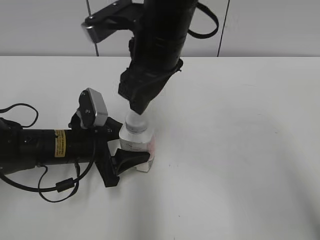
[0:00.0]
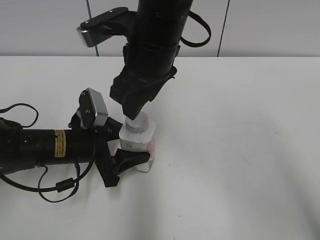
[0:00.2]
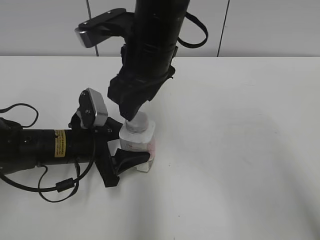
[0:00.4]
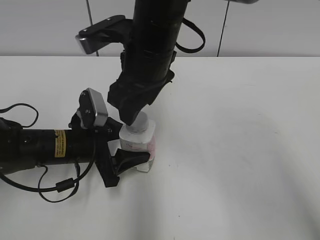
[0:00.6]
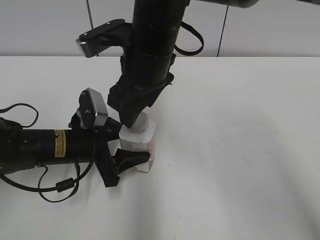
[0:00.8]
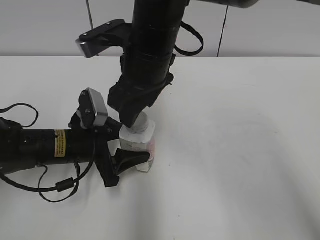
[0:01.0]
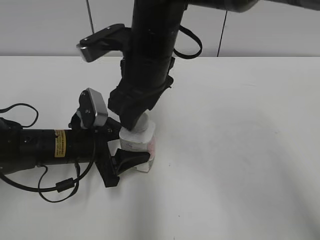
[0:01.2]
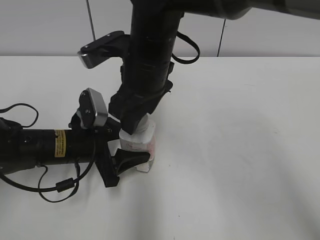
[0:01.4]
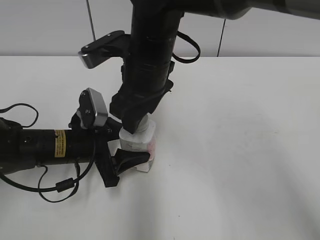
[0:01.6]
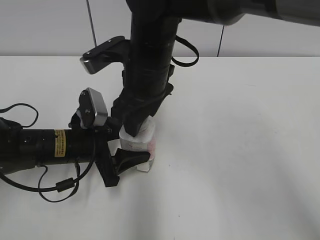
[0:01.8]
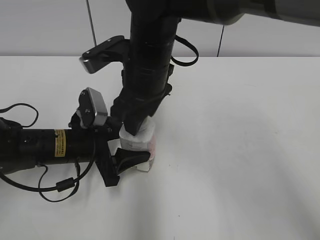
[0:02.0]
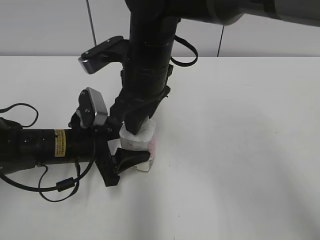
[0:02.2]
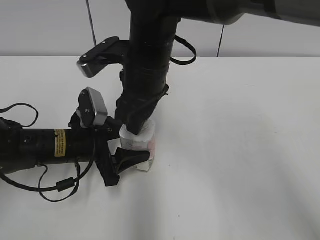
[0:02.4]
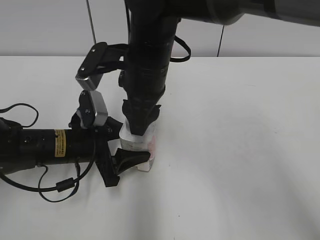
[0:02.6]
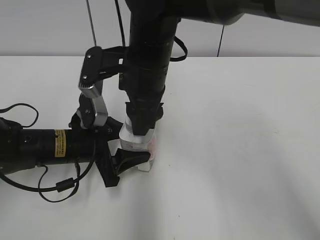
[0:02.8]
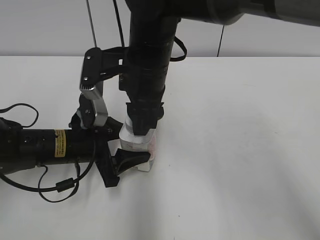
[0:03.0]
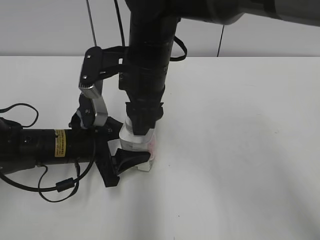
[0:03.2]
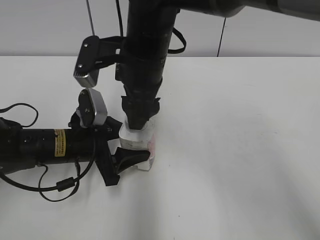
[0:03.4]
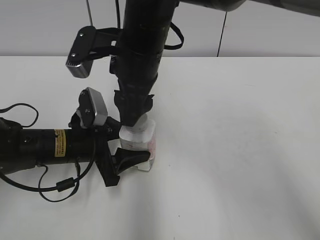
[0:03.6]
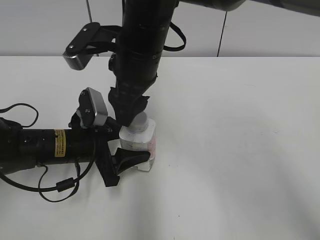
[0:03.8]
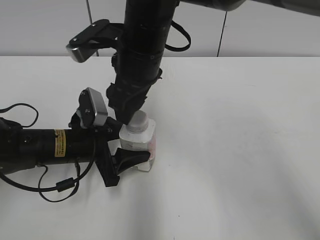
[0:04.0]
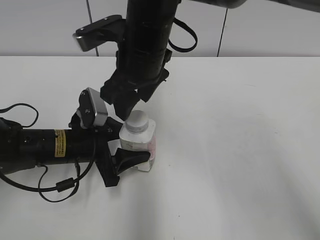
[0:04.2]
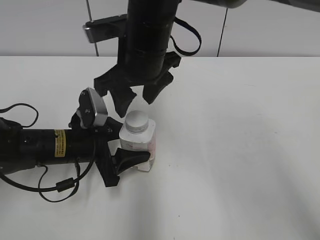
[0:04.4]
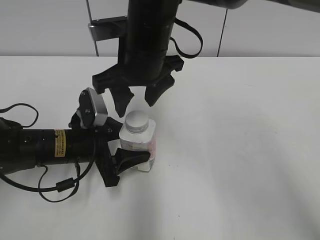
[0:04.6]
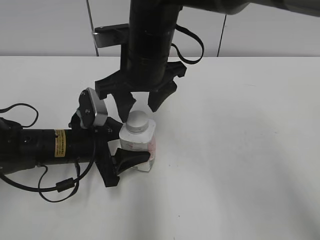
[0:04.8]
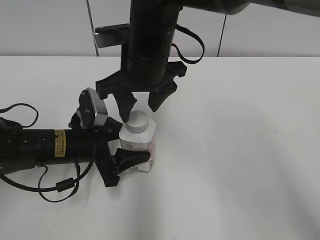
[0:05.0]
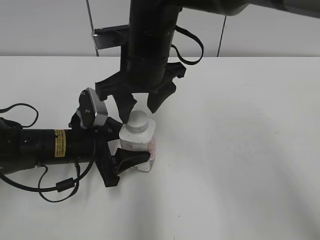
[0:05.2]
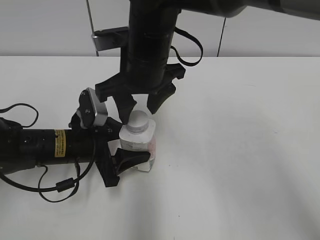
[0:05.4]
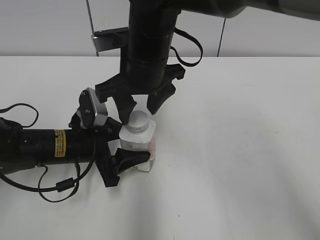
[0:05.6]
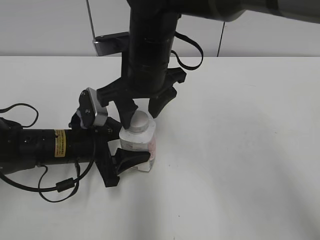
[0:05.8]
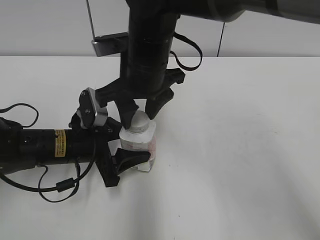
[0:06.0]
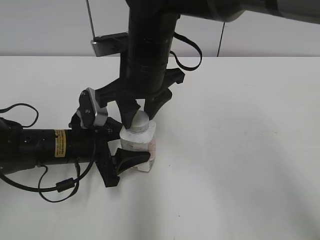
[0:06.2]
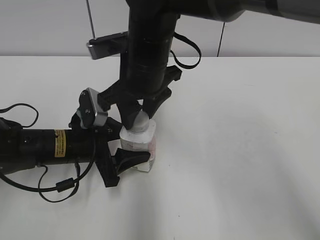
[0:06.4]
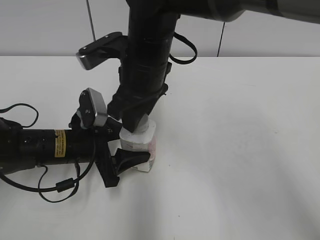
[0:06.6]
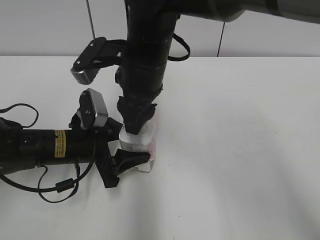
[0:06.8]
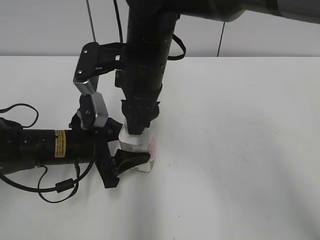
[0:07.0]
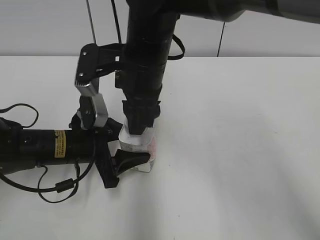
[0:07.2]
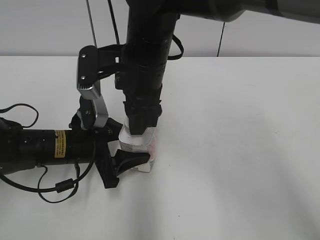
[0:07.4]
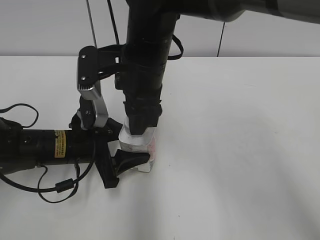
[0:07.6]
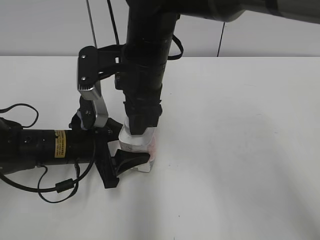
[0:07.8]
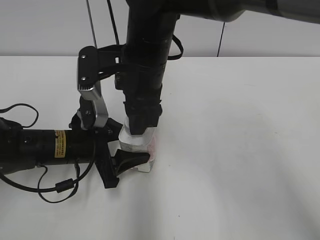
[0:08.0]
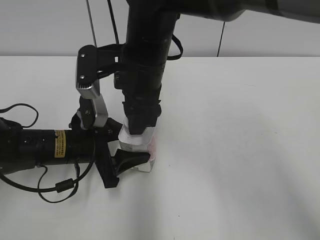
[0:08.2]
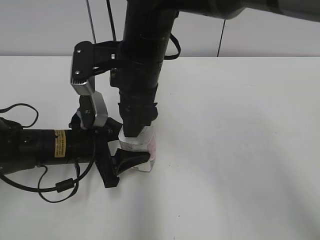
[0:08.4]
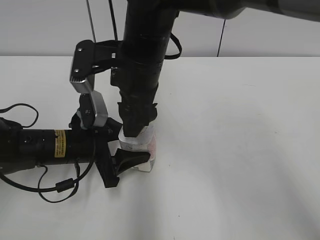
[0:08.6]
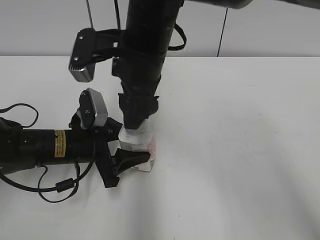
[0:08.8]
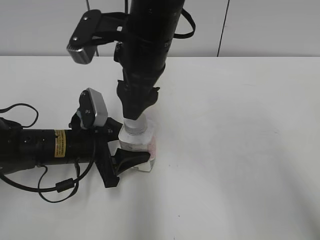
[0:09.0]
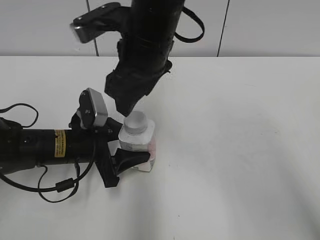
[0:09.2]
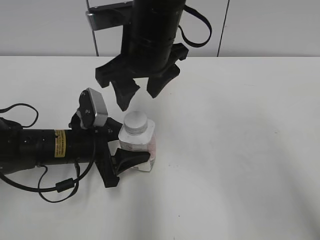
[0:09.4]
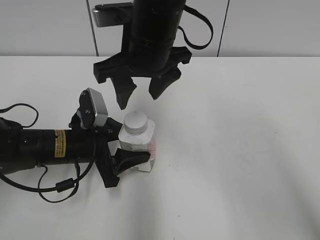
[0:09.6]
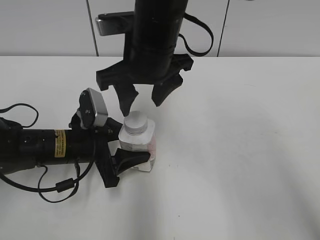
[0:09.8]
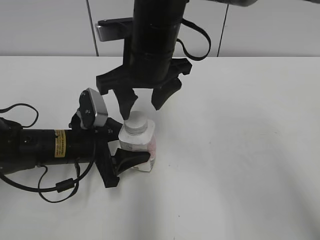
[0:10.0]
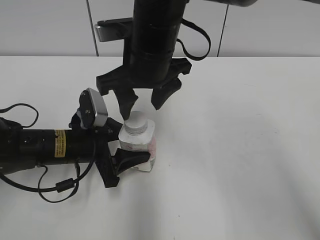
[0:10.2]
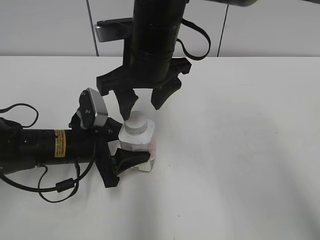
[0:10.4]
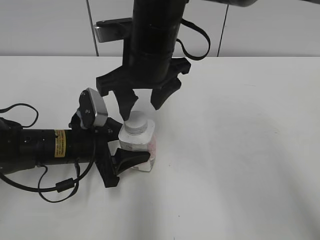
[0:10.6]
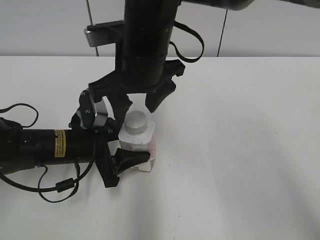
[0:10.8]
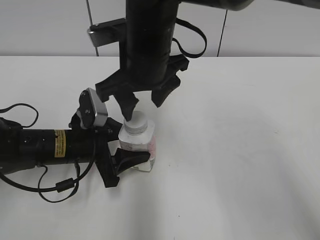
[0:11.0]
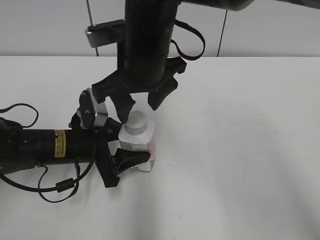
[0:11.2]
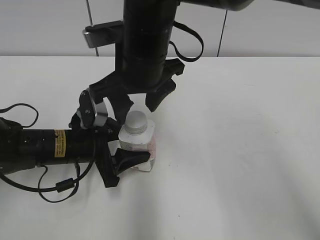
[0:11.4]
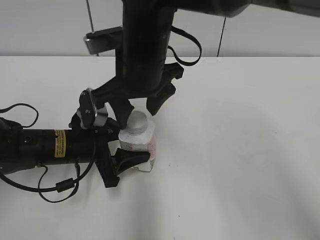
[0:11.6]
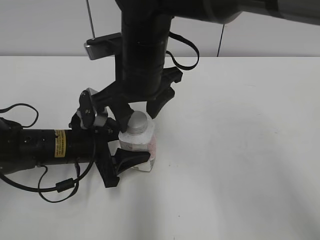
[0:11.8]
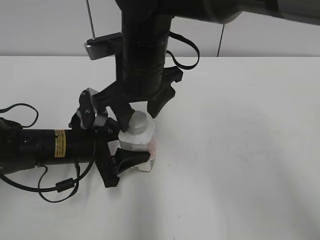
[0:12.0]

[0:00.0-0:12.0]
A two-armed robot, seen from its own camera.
0:00.0 to 0:01.6: The right gripper shifts by some 5 cm.
0:01.6 to 0:03.0: The right gripper closes its fingers.
0:03.0 to 0:04.4: The right gripper opens up.
0:04.4 to 0:06.0: The grippers move only a little.
0:07.6 to 0:09.0: The right gripper opens its fingers.
0:10.4 to 0:12.0: The grippers make only small movements.

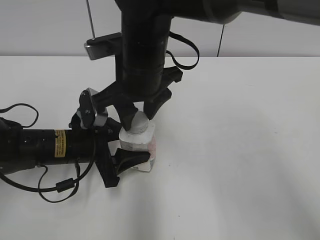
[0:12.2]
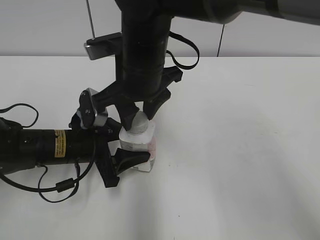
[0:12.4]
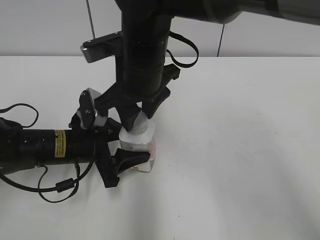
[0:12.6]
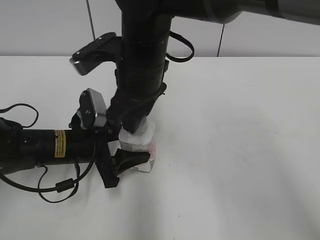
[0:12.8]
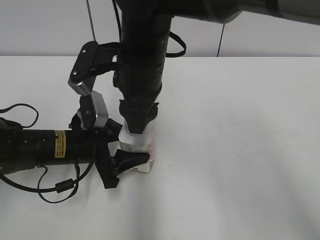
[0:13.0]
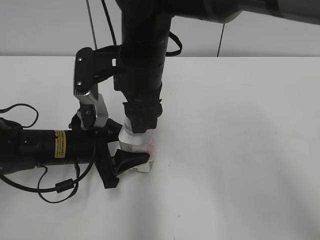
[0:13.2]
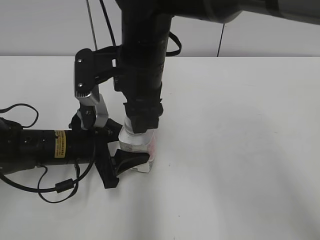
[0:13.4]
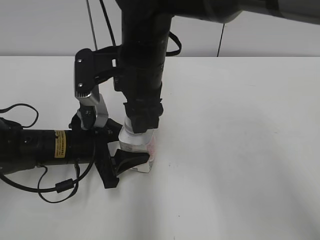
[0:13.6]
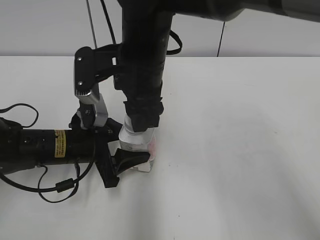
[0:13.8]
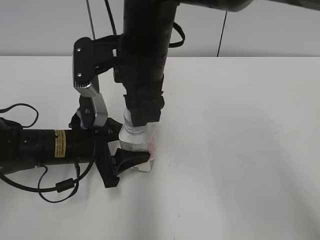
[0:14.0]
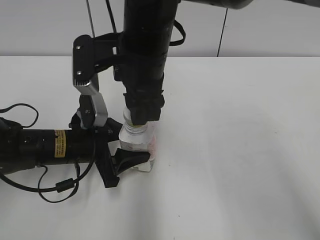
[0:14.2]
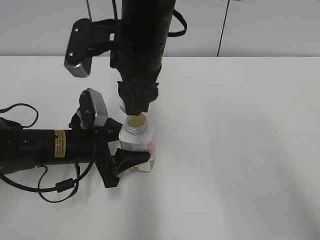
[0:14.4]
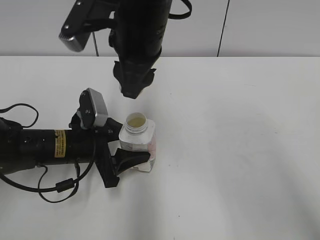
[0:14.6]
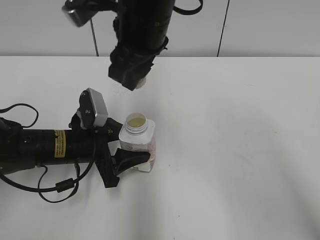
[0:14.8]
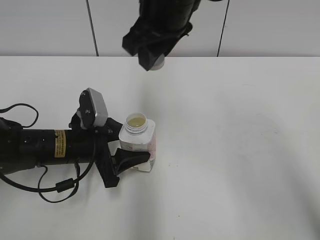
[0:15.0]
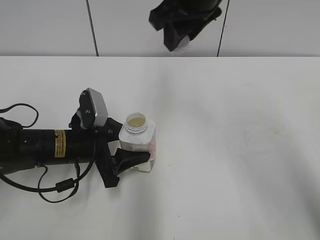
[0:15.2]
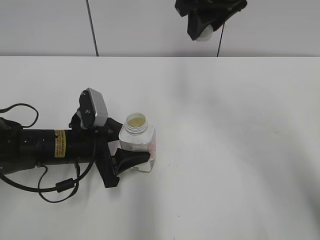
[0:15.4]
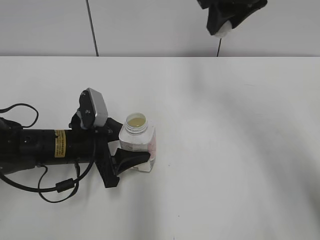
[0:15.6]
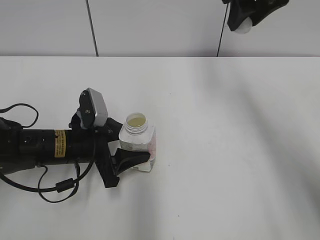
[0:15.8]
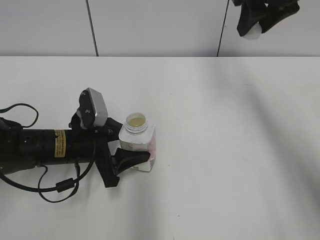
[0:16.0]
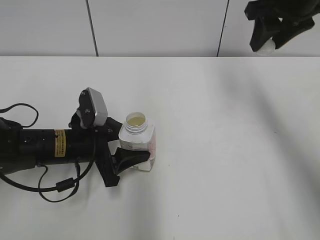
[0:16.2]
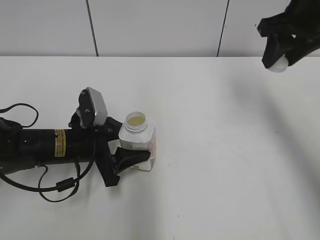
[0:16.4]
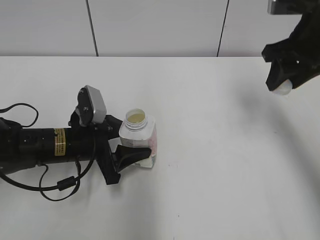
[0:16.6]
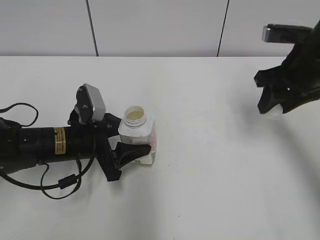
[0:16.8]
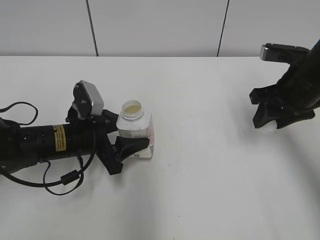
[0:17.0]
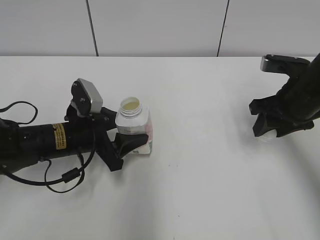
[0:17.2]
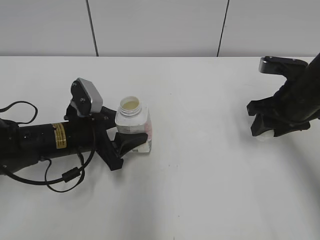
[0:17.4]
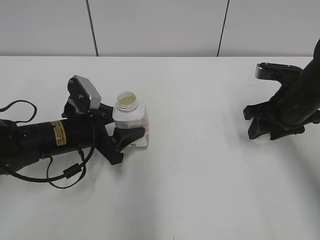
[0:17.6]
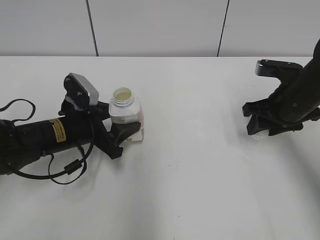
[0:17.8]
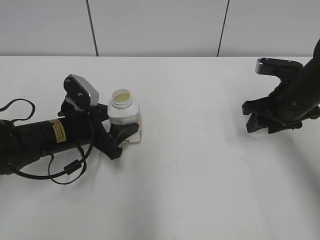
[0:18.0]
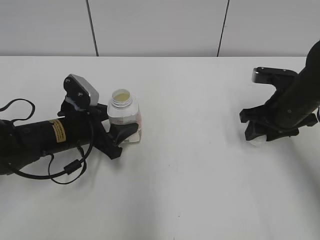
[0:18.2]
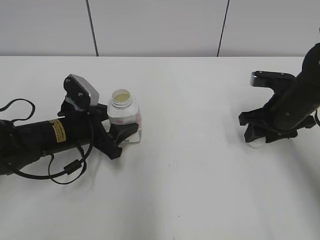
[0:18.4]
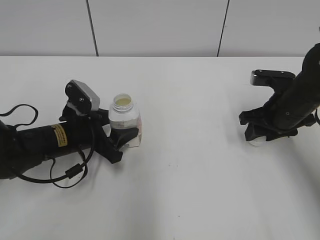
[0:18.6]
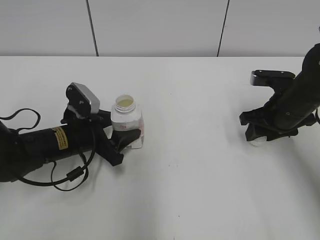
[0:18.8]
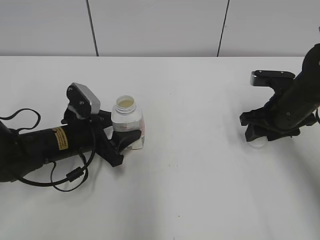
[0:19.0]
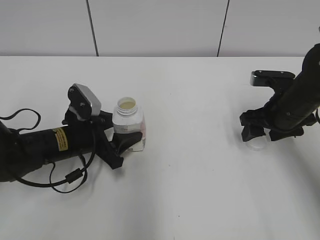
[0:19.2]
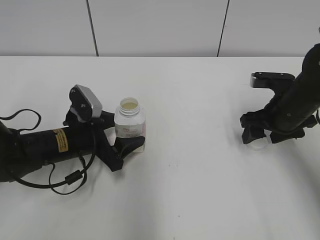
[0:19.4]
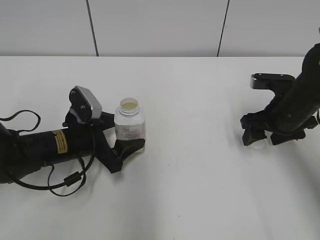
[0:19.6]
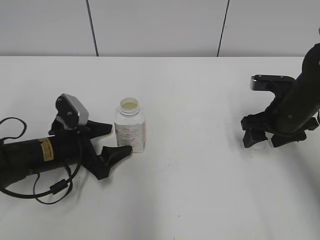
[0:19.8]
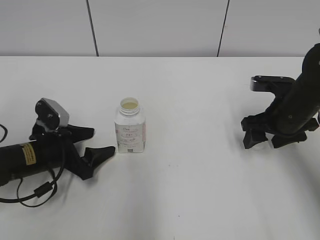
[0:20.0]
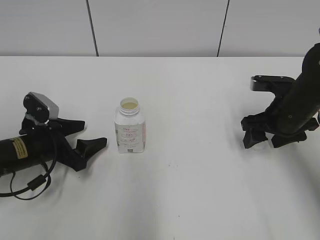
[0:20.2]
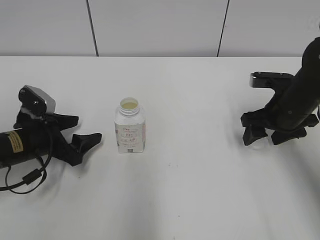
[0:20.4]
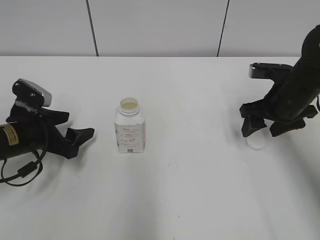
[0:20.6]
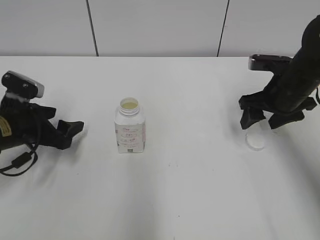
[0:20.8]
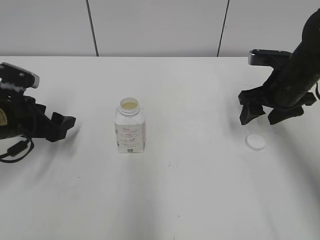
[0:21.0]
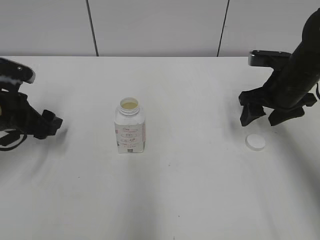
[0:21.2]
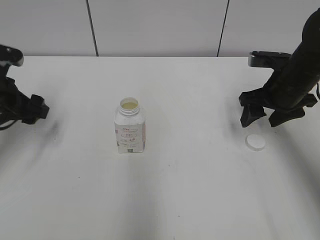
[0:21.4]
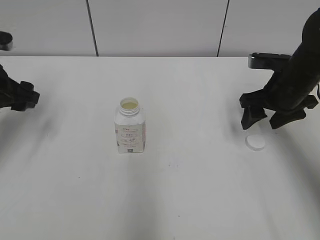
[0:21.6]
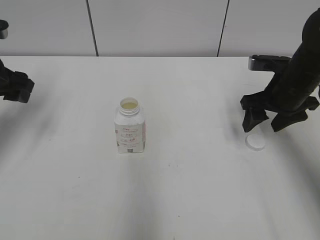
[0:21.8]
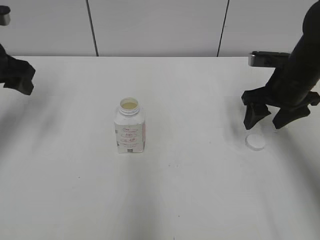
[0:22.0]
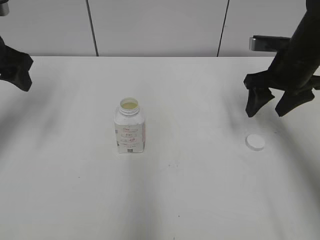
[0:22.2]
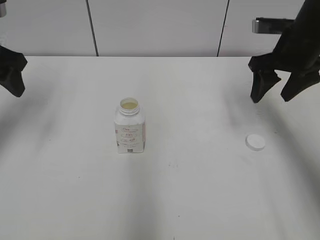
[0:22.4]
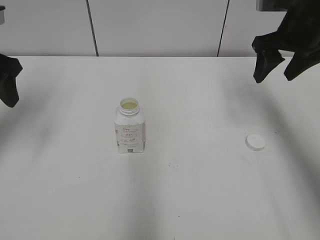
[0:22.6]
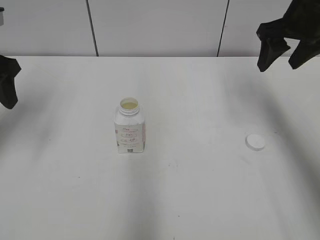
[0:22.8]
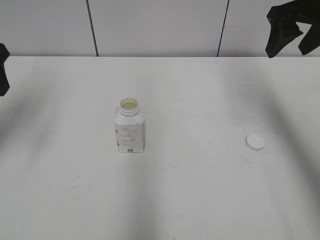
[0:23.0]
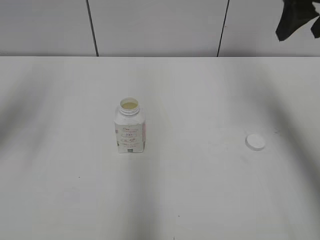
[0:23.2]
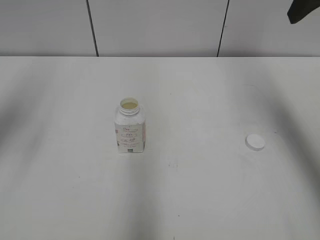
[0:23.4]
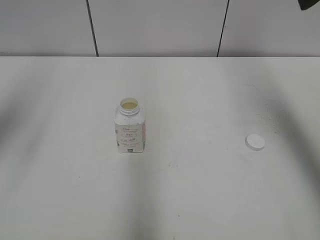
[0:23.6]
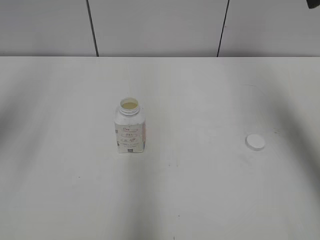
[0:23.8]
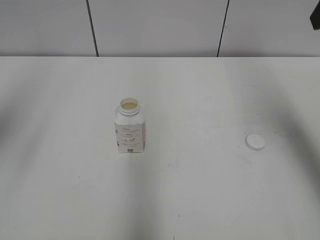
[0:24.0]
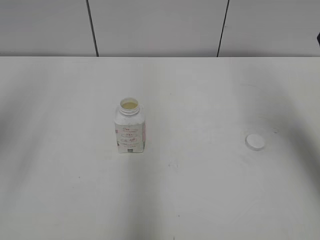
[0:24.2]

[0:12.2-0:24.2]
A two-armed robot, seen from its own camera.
Step, 0:14.6 to 0:19.4: Place the bottle cap on the right.
0:13.8 to 0:15.2: The right gripper is displaced upward, to the right and forward by some 15 cm.
0:15.2 to 0:16.6: The right gripper shifts about 20 cm to the right.
0:16.6 to 0:18.2: The right gripper is displaced downward by approximately 15 cm.
0:18.2 to 0:19.8: The right gripper opens its fingers; the left gripper opens up.
0:19.8 to 0:21.2: The left gripper moves to the left and upward, some 10 cm.
0:21.2 to 0:22.6: Both grippers move upward, roughly 10 cm.
0:22.6 to 0:24.2: The grippers both shift backward and upward by roughly 15 cm.
